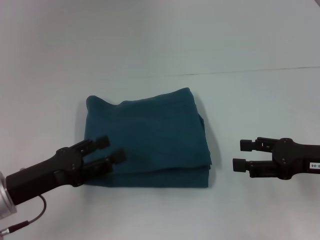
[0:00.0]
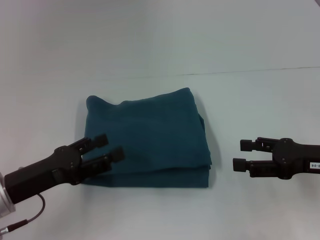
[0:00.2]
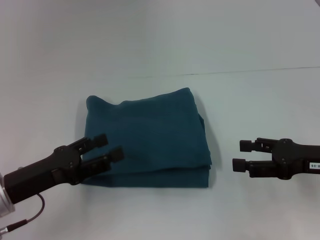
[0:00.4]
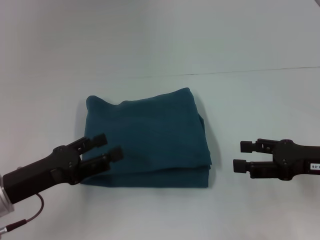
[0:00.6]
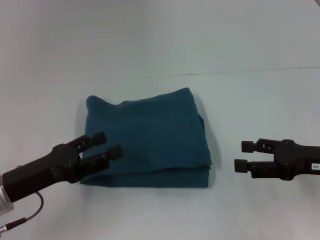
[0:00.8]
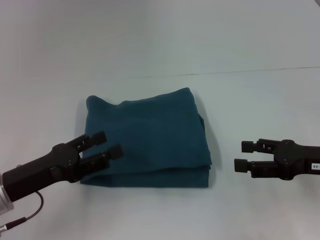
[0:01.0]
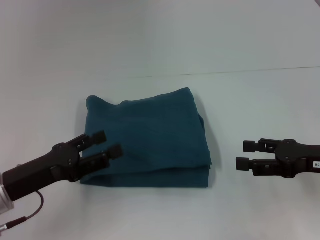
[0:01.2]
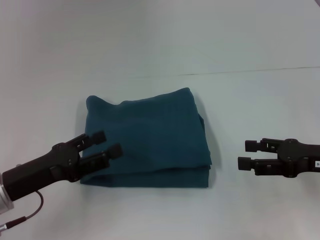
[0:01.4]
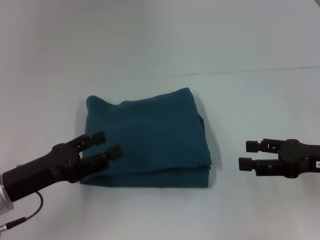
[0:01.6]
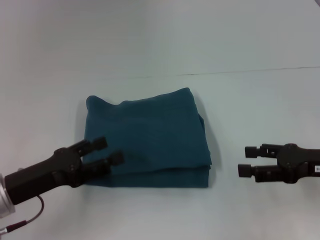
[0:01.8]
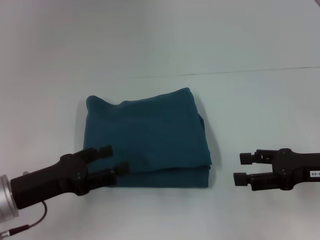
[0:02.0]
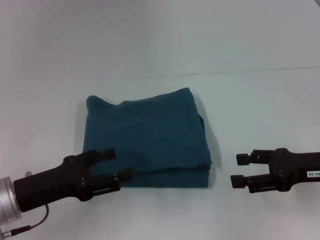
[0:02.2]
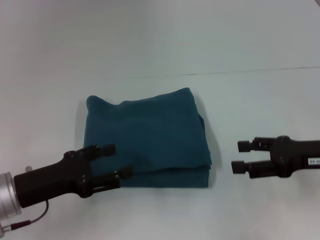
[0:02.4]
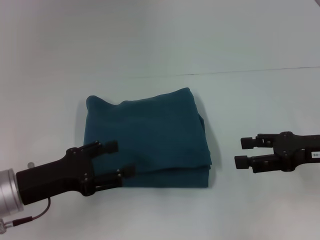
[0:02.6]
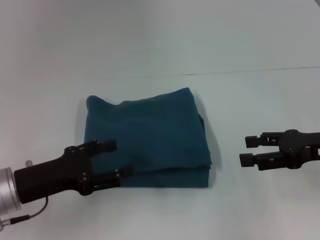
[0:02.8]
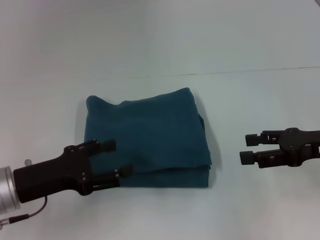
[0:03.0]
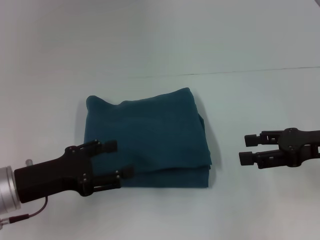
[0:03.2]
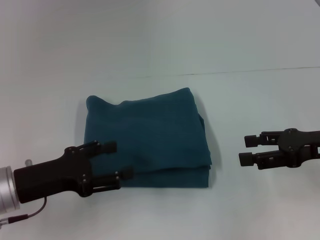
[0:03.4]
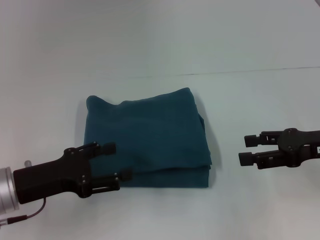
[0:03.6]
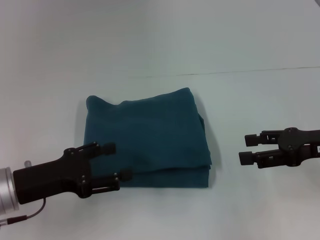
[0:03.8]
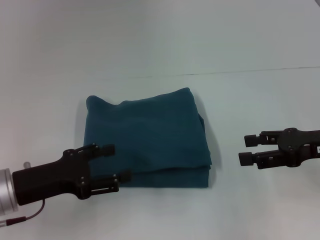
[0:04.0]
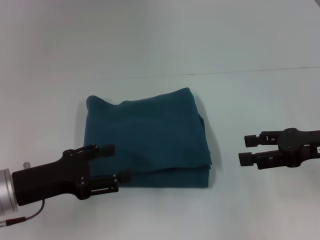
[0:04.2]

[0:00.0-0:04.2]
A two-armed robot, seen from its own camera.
0:00.0 to 0:01.4: Neither gripper changes place.
0:01.4 to 0:02.8: The grippers move only a little.
0:02.8 to 0:04.2: Both grippers stay about where they are.

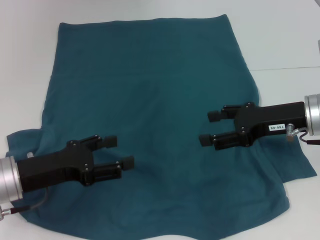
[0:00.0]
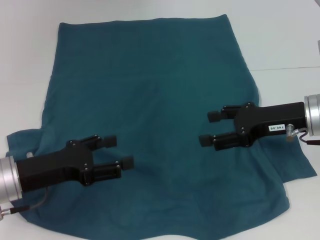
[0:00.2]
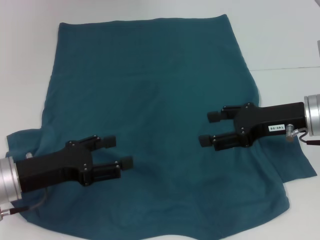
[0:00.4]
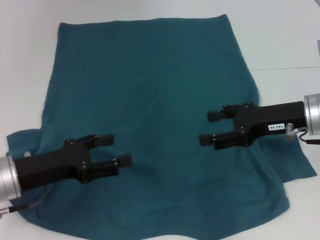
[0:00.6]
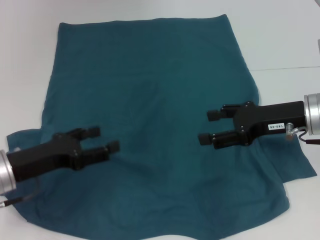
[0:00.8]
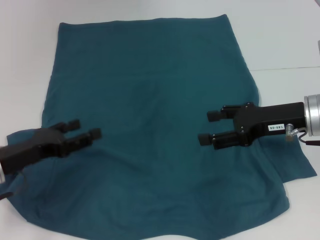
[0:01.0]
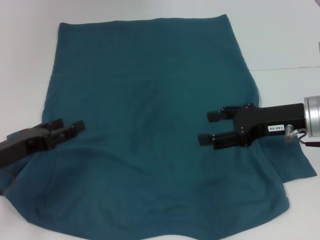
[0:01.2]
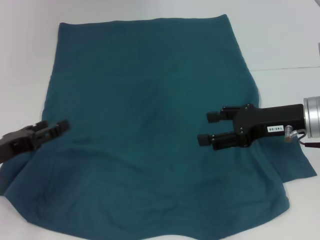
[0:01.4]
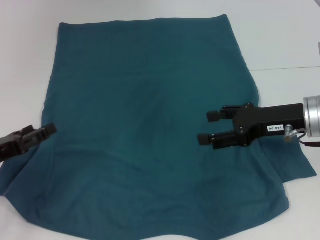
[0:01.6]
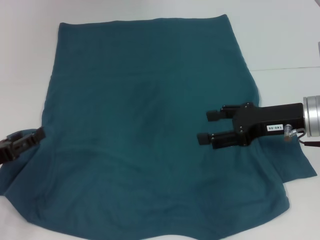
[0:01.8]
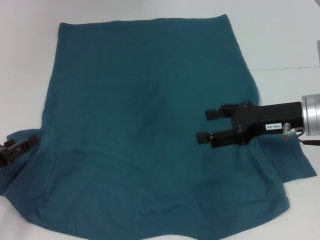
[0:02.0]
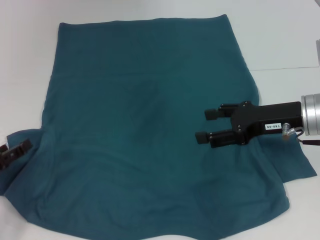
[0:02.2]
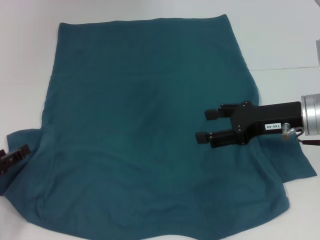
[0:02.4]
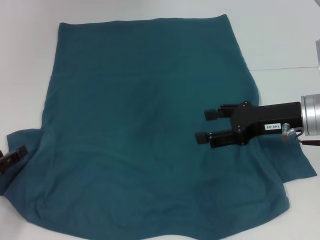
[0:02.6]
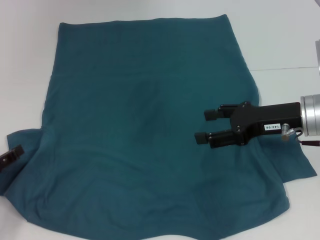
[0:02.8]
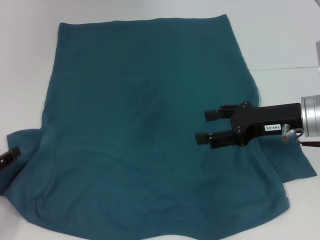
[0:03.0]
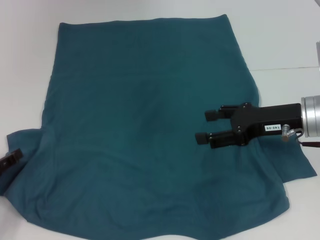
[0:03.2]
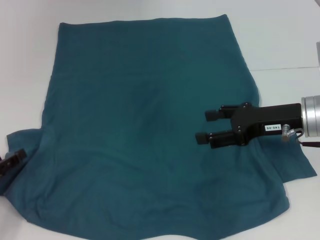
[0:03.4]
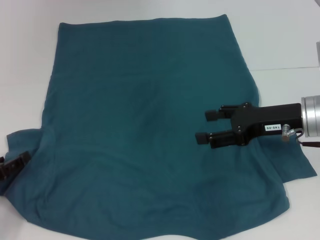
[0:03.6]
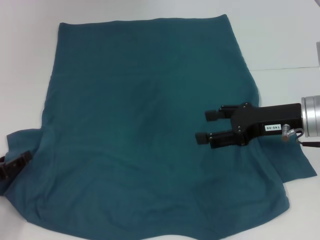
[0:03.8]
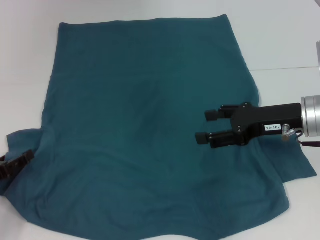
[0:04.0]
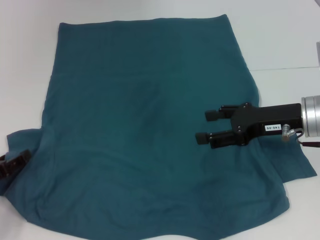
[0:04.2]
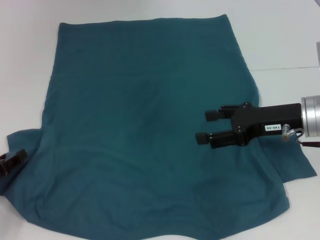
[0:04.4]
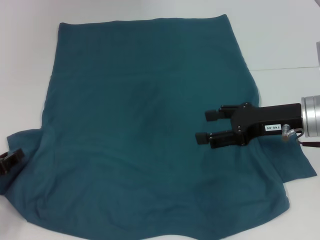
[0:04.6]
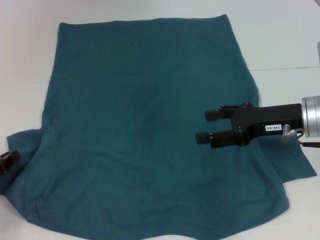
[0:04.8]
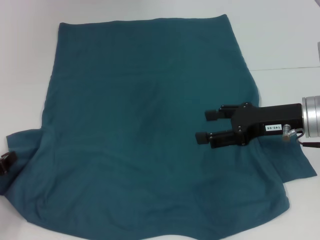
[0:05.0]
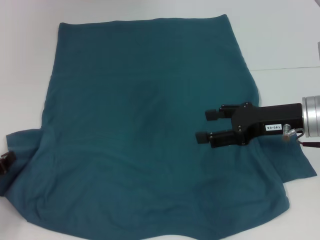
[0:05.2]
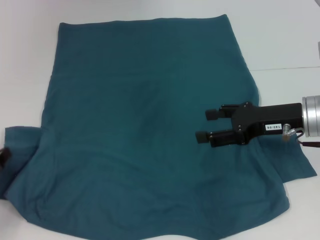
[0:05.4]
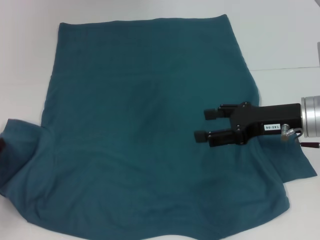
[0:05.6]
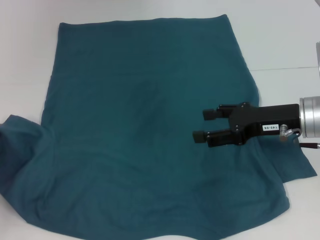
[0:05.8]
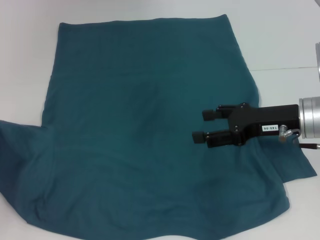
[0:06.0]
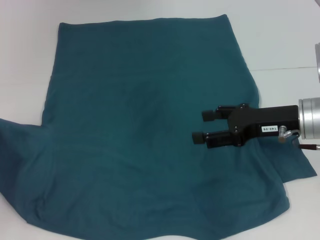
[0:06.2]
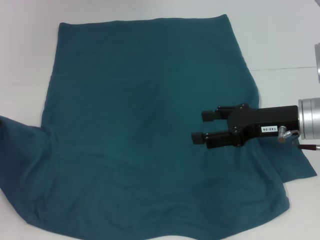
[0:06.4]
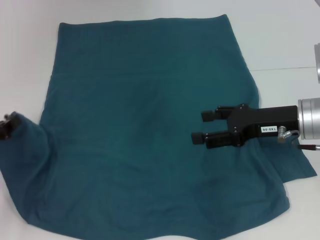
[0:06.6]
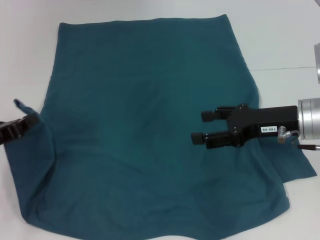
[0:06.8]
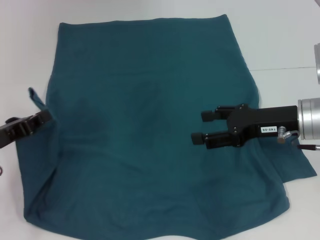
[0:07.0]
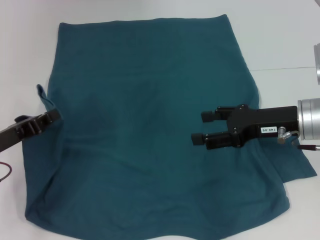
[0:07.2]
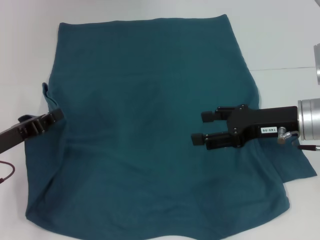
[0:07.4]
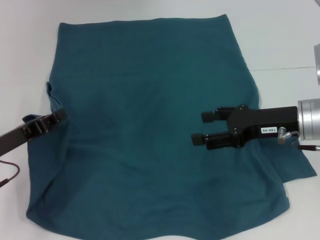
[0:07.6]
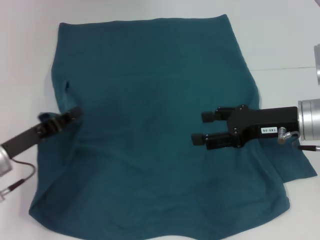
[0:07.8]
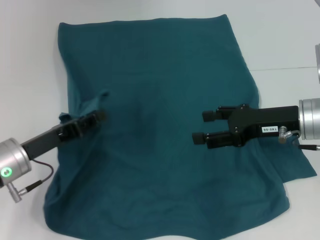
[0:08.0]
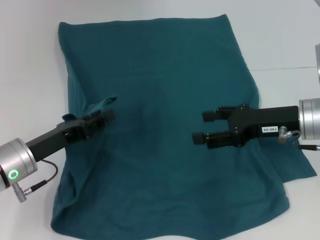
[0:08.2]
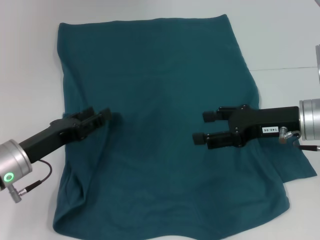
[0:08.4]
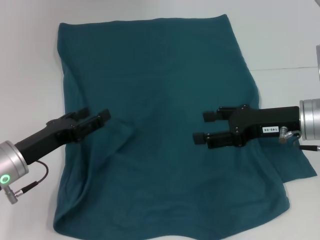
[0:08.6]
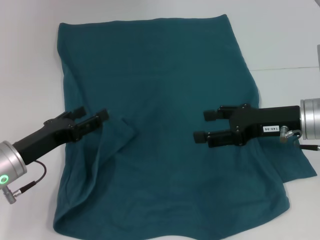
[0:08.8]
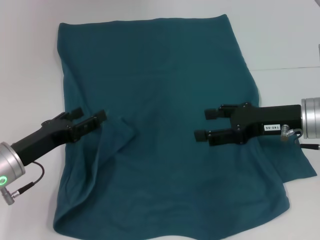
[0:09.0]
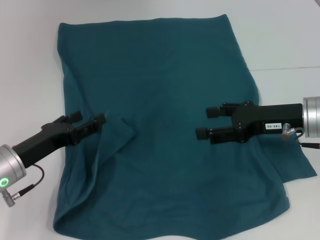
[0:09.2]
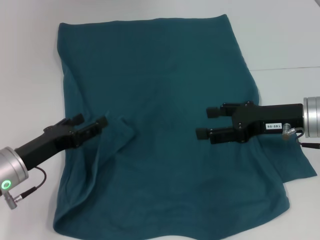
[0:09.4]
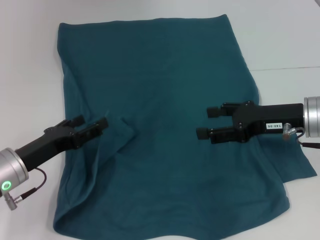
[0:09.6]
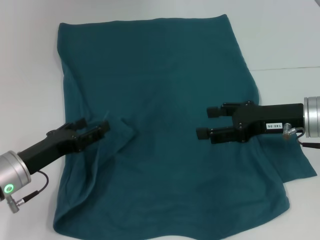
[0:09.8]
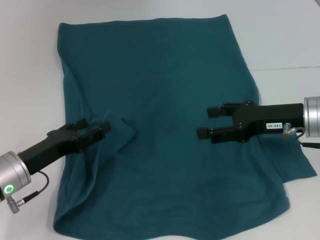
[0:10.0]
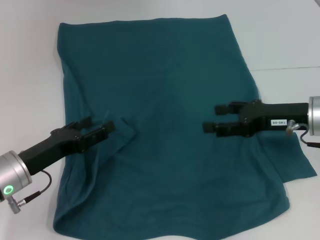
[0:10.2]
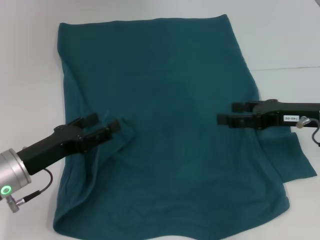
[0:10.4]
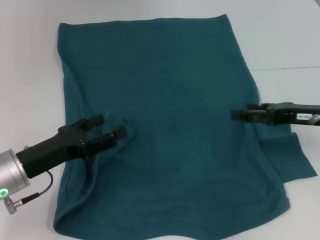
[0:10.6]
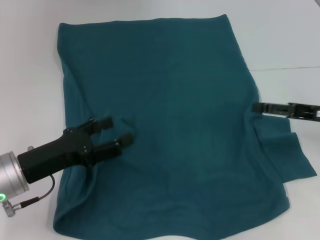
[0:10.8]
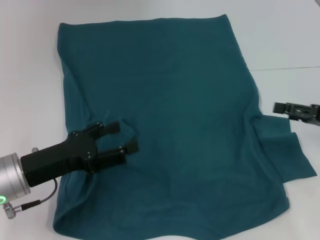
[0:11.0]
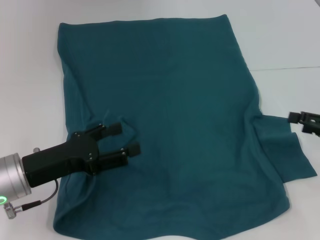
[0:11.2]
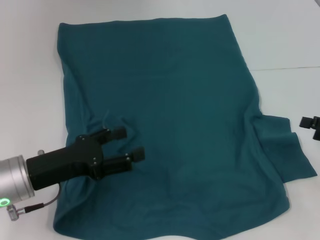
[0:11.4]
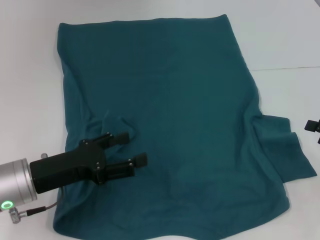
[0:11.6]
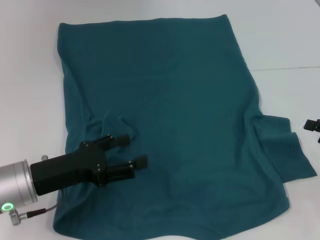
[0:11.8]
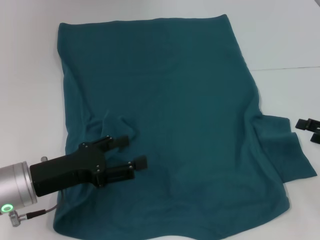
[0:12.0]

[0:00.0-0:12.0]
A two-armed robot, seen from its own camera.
Step, 0:00.0 to 0:09.2: Fold the bottom left sleeve with your left hand.
0:00.0 to 0:01.6: The left gripper heads to the left, covering roughly 10 cm.
0:01.6 to 0:03.0: The left gripper moves about 5 cm.
0:04.4 to 0:06.0: The left gripper moves roughly 5 cm, and closes.
0:06.0 to 0:07.6: The left gripper moves to the right, approximately 5 cm.
0:07.6 to 0:09.0: The left gripper opens up.
0:09.0 to 0:10.4: The grippers stay close to where they were, moving slightly.
0:10.4 to 0:12.0: The right gripper shifts approximately 15 cm to the right, backward and downward.

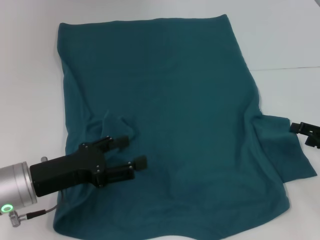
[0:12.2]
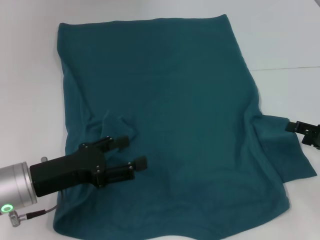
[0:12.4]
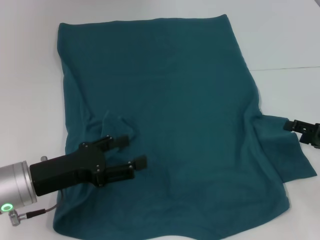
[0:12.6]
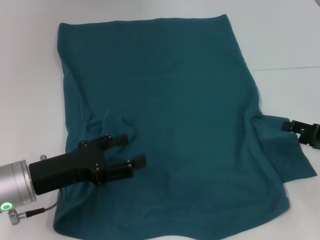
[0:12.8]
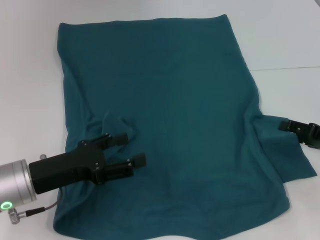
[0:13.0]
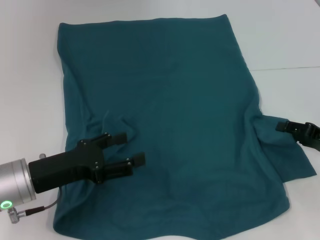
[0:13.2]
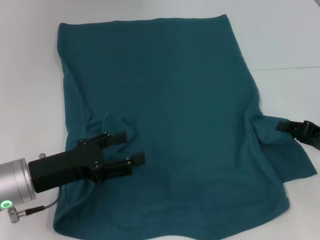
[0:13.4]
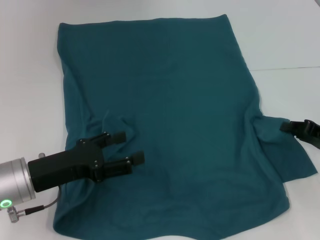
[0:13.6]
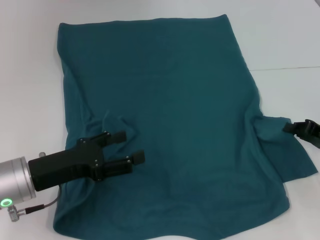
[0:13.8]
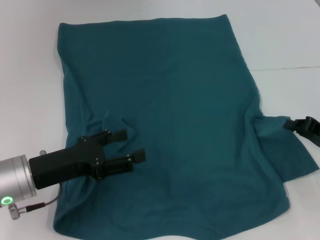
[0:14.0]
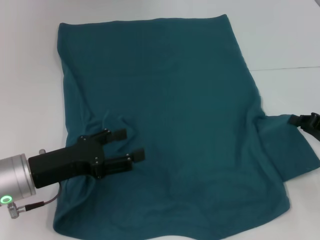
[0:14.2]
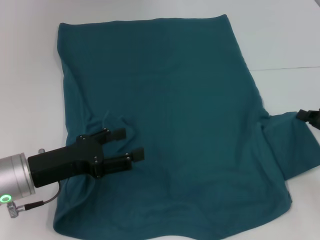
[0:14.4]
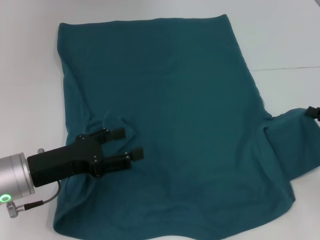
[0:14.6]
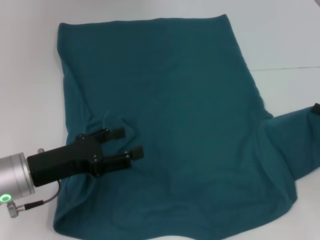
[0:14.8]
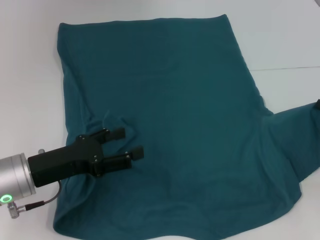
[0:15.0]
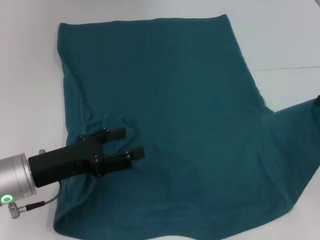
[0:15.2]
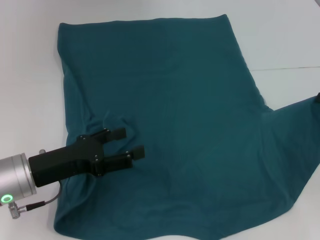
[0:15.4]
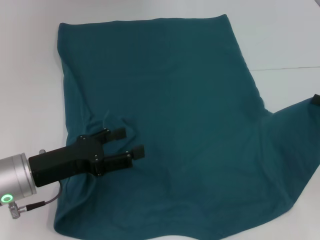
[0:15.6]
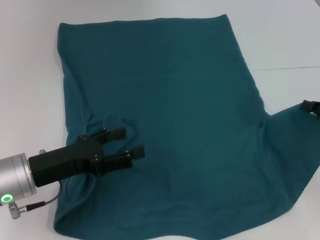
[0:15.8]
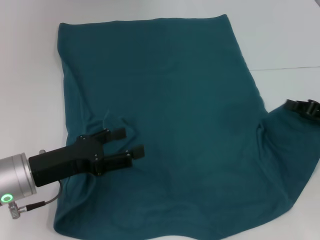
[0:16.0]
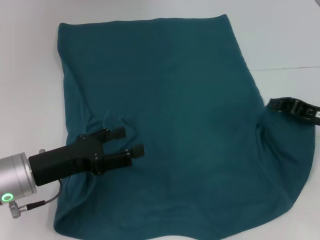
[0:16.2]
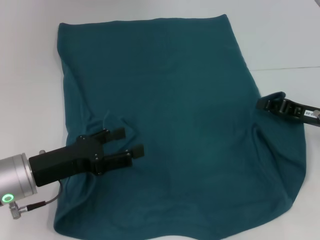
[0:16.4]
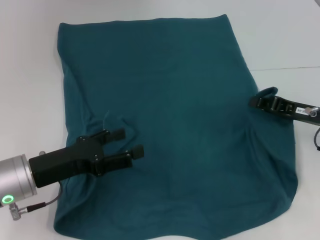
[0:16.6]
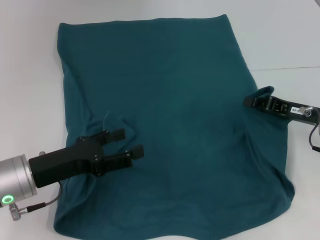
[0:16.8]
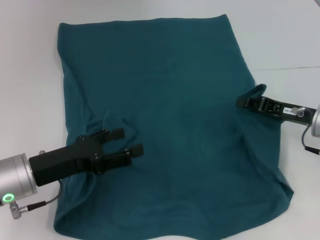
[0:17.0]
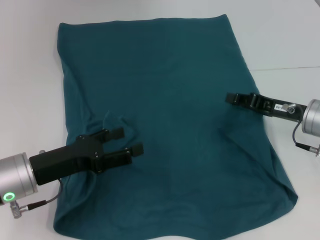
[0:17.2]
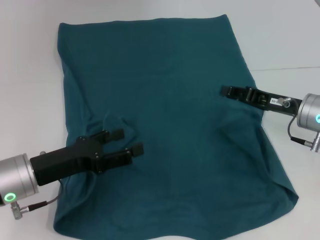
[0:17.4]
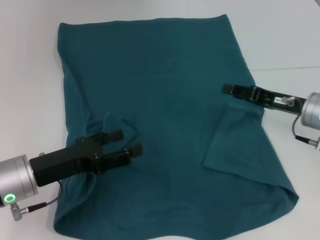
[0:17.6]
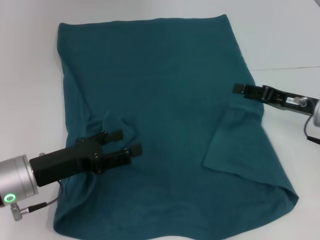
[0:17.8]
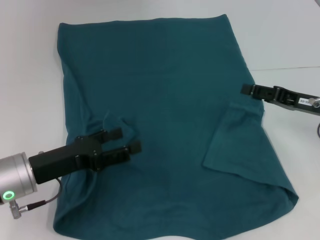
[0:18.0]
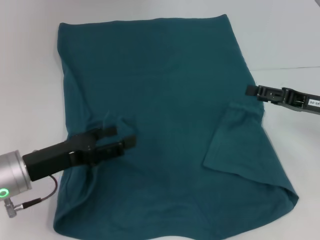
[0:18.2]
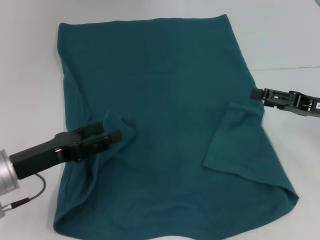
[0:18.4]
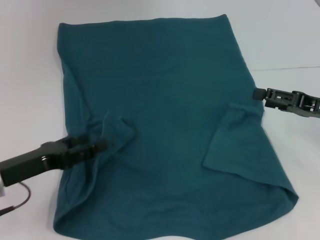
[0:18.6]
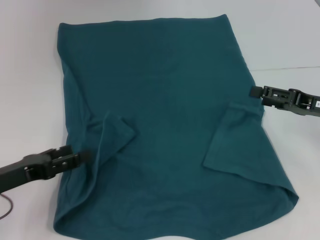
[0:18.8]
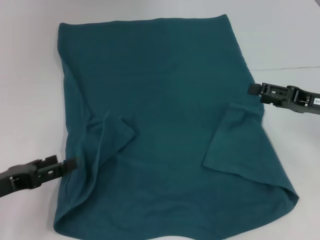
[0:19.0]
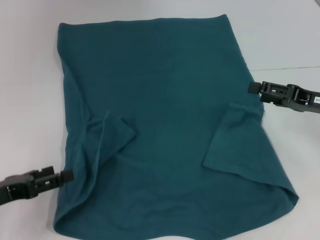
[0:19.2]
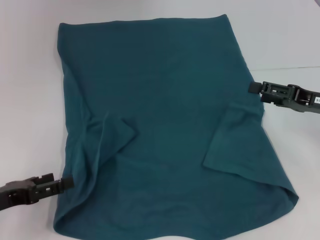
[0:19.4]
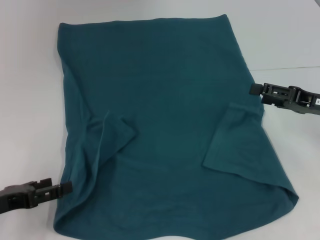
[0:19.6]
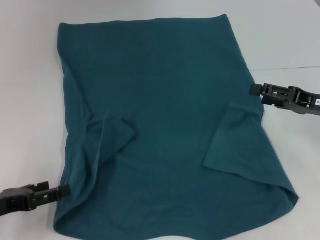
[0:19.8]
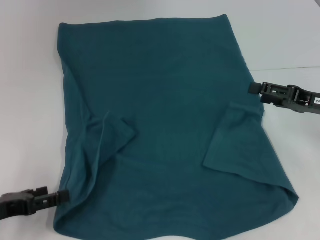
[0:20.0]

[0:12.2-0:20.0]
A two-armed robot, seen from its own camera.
Step, 0:12.2 to 0:17.4: Fold the bottom right sleeve to the right.
0:12.2 to 0:13.8: The right gripper closes up.
0:13.8 to 0:15.4: The grippers move only a little.
0:15.4 to 0:16.8: The right gripper travels to the left by some 10 cm.
0:16.8 to 0:18.4: The right gripper opens.
0:18.4 to 0:20.0: The left gripper travels to the left by about 5 cm.
